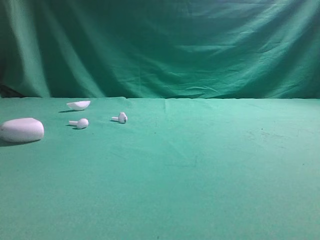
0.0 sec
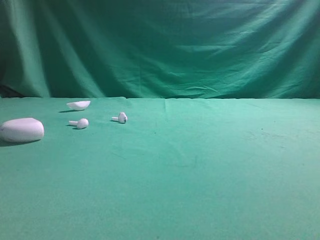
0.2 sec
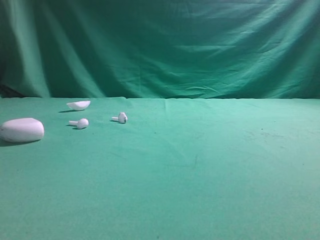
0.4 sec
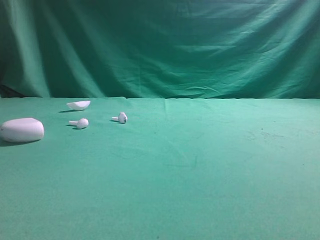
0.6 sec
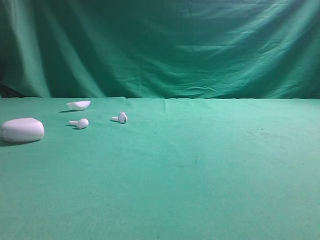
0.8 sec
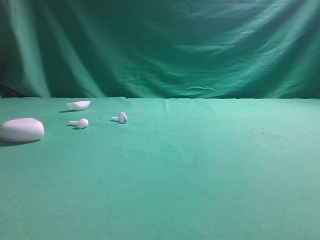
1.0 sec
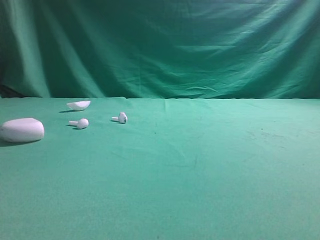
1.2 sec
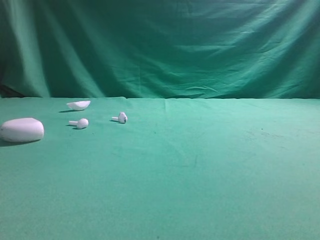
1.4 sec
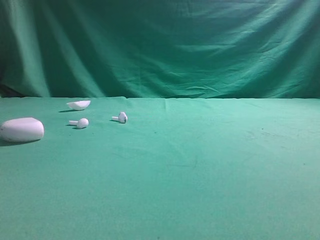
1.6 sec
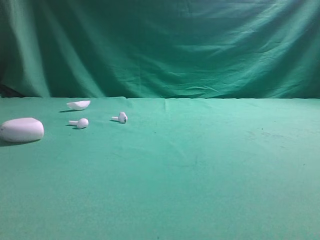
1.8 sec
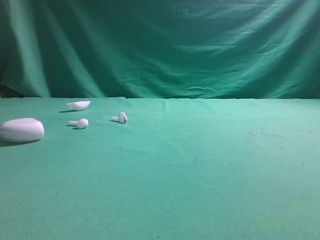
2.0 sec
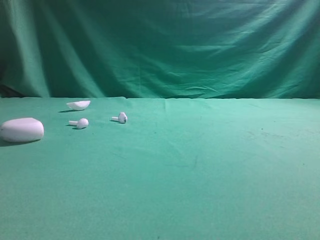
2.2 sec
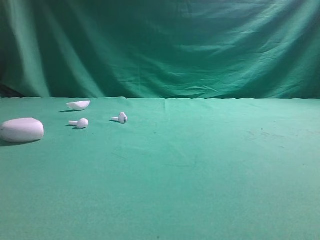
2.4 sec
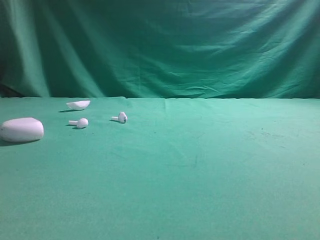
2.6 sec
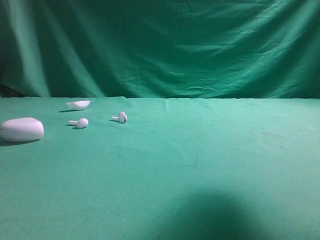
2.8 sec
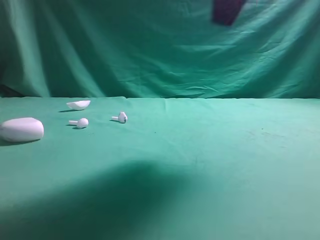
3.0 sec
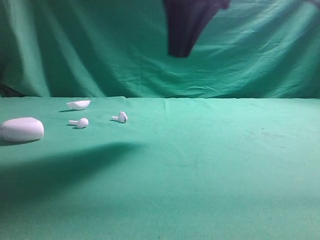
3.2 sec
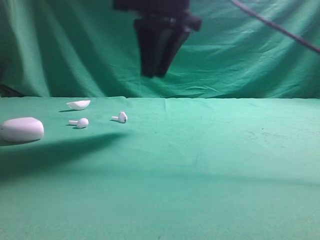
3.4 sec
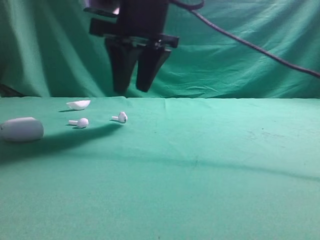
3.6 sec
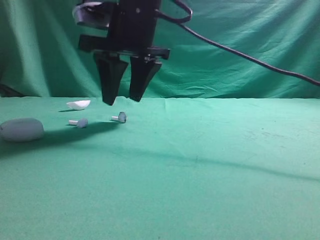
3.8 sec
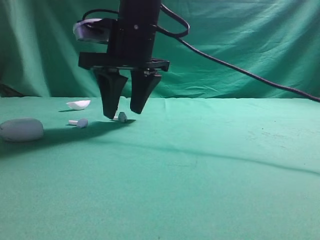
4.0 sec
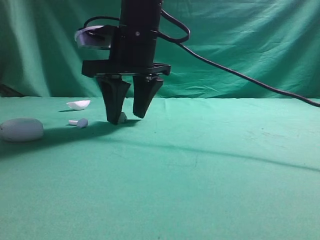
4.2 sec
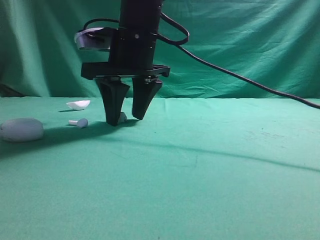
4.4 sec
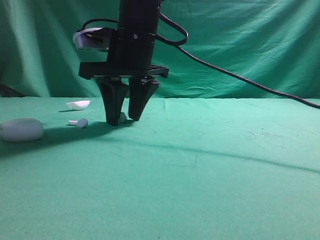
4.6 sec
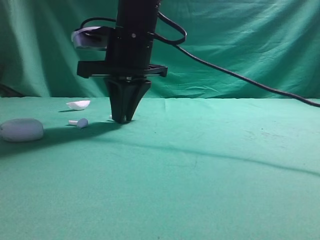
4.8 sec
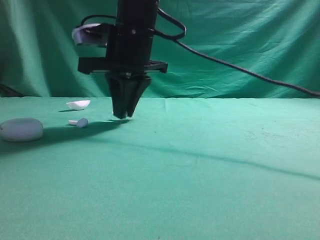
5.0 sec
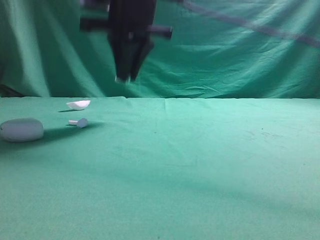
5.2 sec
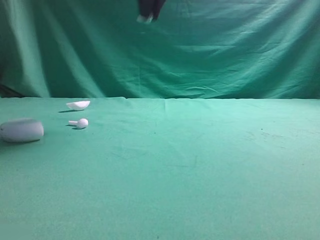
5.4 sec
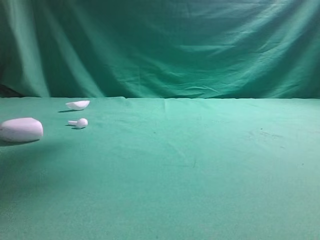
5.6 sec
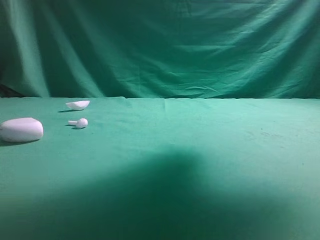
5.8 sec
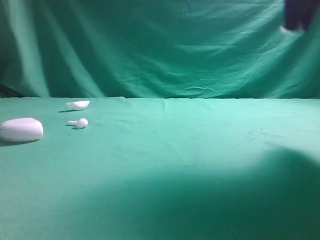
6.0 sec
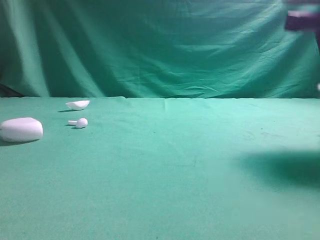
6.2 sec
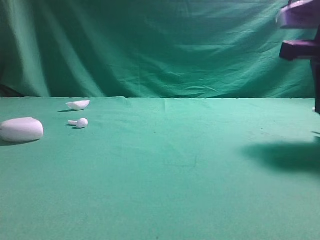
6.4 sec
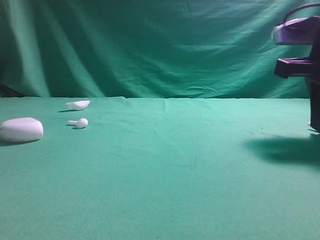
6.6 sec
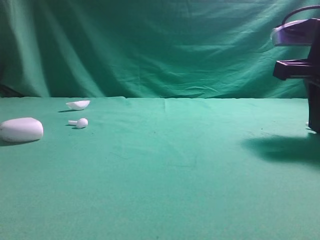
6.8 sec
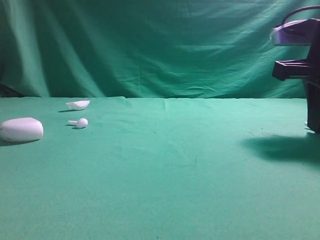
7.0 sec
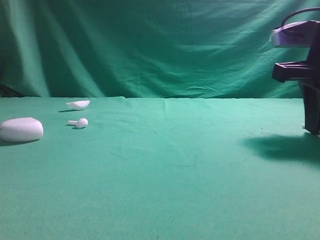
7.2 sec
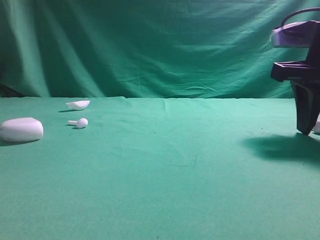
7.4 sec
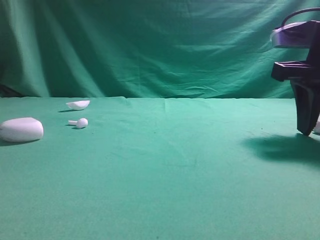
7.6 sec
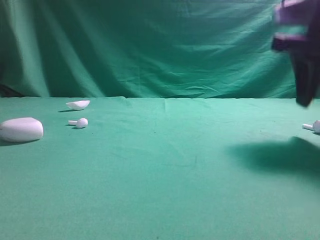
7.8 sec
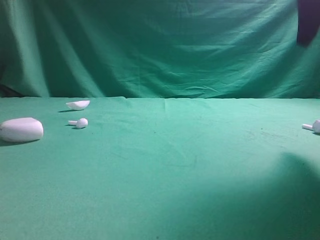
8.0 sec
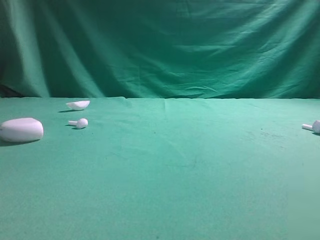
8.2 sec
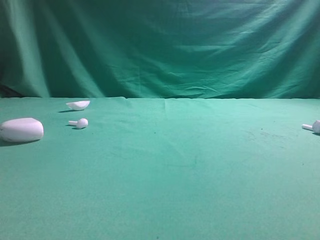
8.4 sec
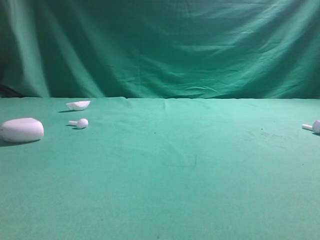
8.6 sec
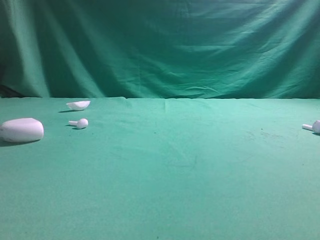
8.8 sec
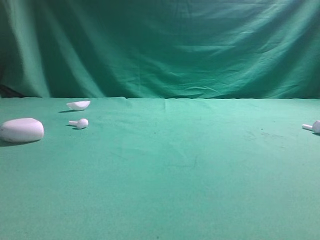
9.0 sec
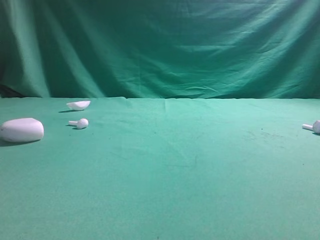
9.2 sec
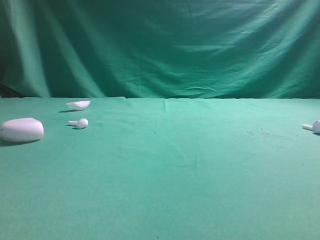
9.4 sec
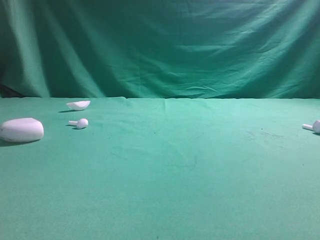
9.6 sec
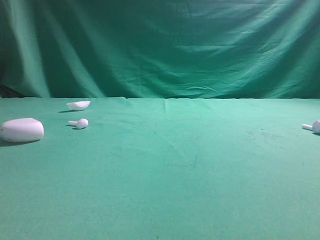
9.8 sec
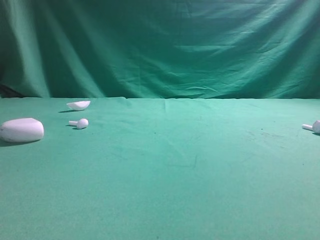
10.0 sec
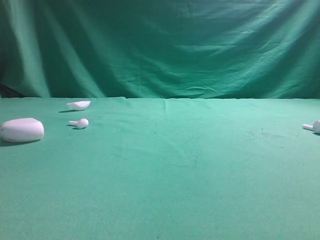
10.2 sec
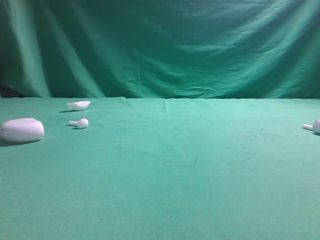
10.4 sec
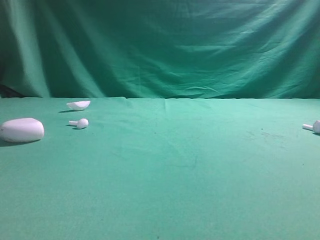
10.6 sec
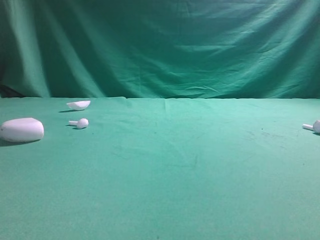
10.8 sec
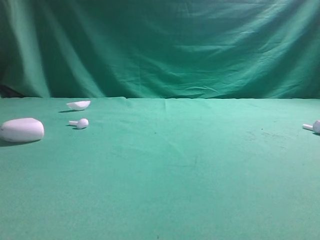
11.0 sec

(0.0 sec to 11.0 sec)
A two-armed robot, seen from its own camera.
Step, 0.0 sec - 5.4 sec: Grasp the Bluetooth earbud.
Step, 5.6 sec - 7.8 sec: Place bluetooth earbud on the right side of the table.

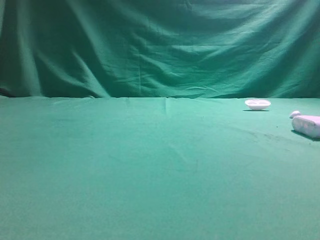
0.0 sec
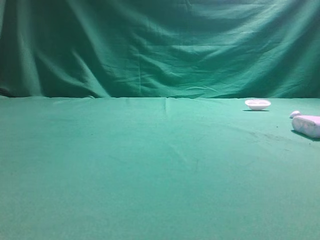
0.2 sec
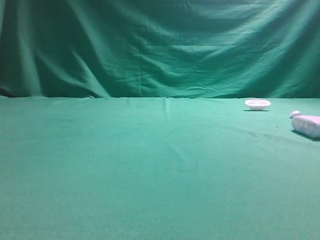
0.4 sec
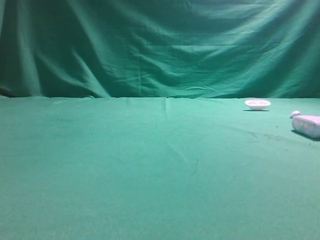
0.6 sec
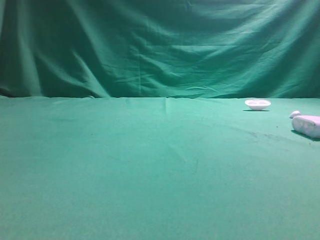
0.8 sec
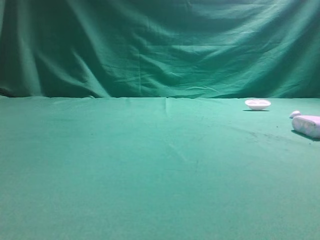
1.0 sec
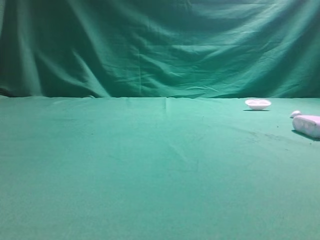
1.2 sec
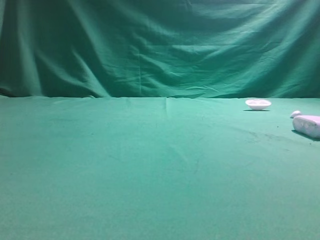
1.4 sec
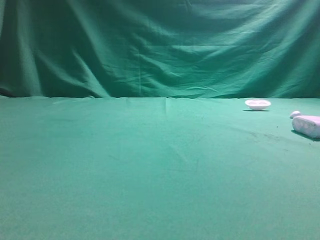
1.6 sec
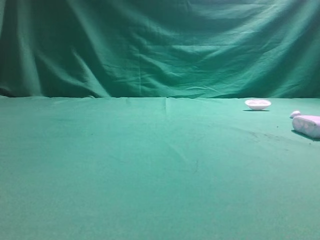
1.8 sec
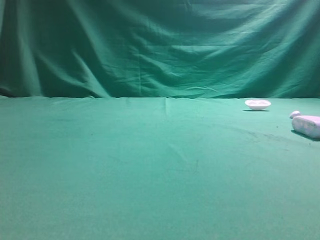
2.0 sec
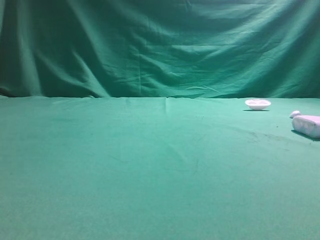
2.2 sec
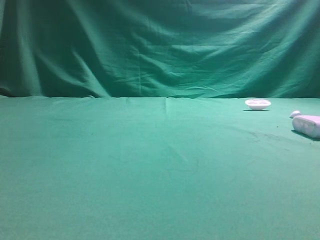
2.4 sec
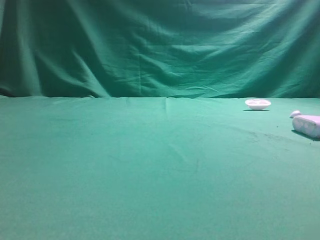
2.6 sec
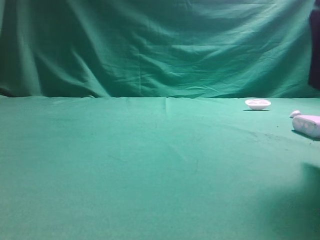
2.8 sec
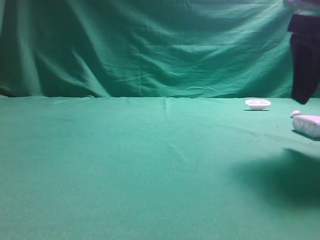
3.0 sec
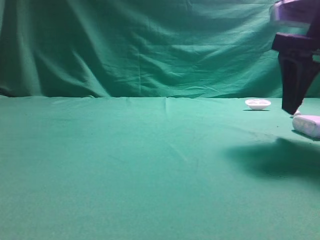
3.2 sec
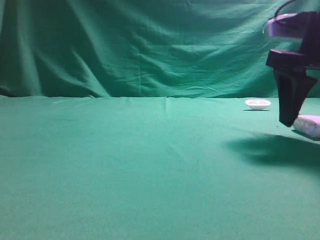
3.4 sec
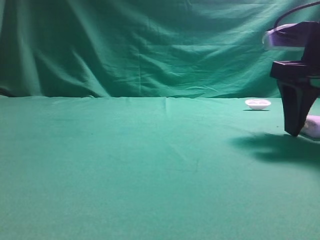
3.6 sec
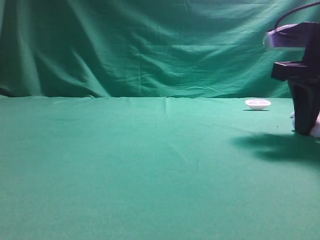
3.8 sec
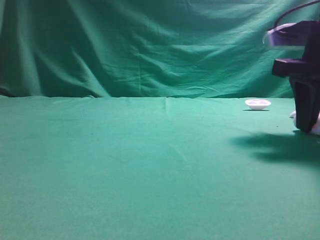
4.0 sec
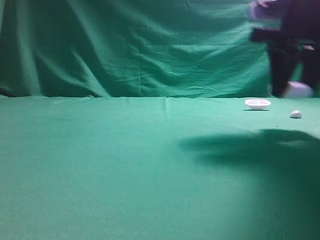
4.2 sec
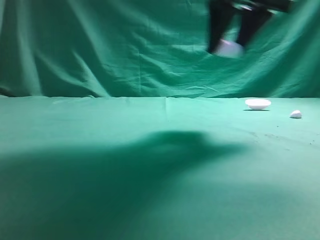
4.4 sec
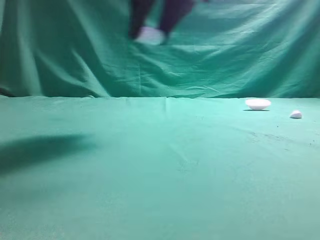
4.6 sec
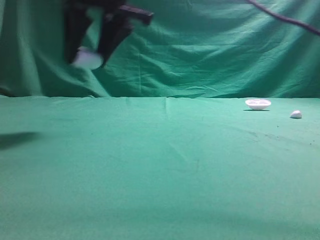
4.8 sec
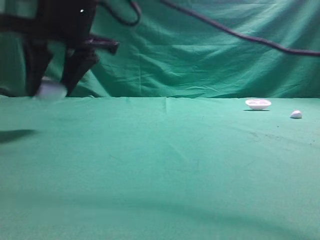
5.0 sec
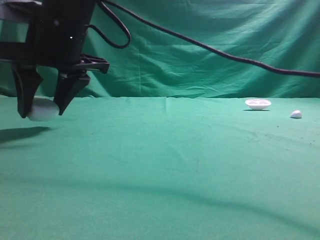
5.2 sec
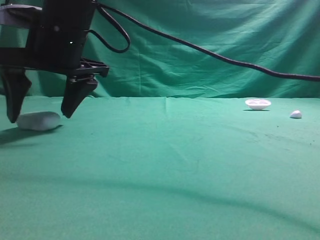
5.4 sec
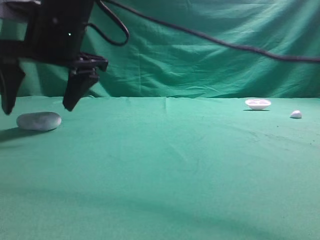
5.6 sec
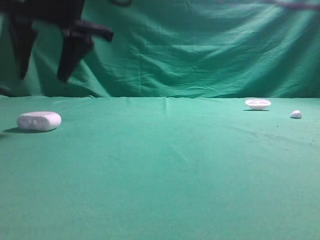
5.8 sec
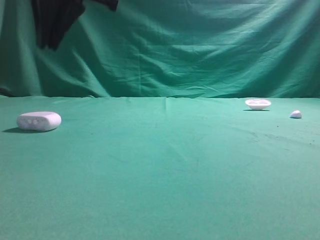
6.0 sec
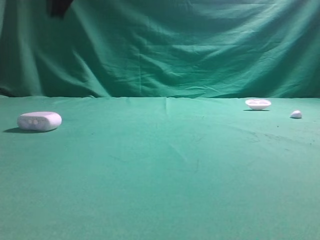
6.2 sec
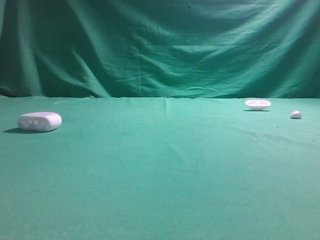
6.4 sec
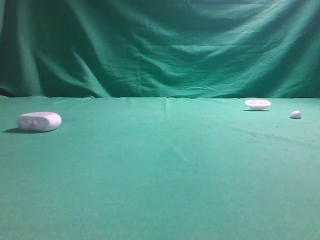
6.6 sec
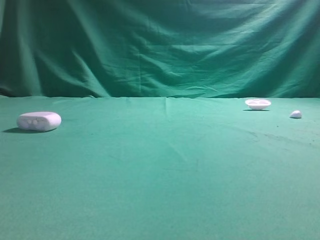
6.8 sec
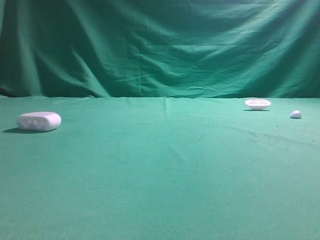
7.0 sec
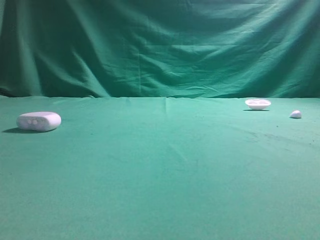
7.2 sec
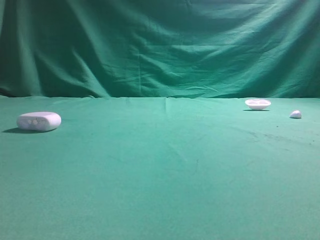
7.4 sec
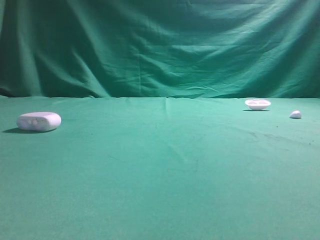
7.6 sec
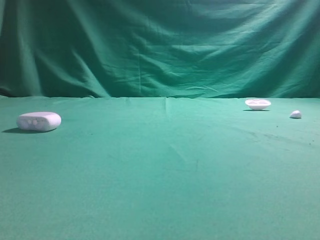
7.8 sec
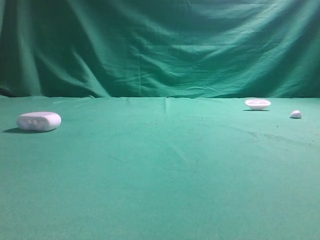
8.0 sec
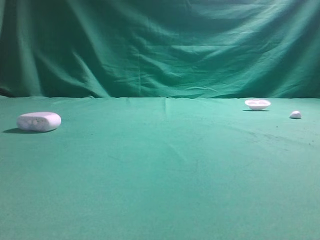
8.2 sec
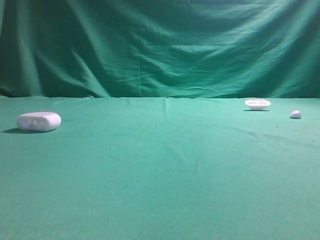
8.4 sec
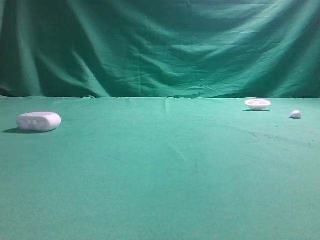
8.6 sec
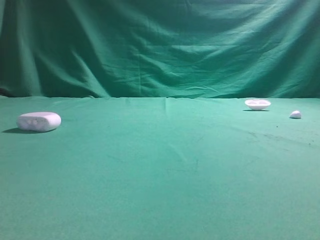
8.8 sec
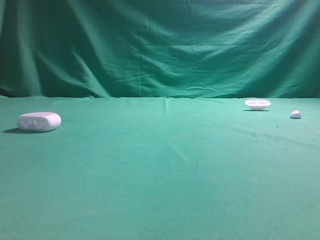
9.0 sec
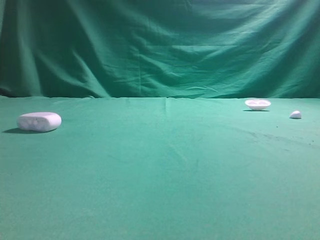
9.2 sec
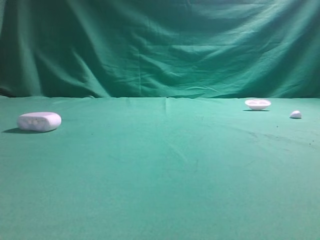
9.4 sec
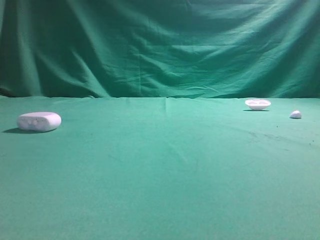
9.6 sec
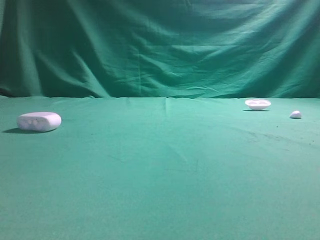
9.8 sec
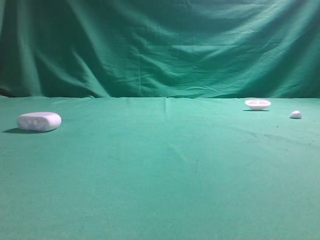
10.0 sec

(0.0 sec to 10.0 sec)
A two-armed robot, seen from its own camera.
Step, 0.0 sec - 4.2 sec: Grasp the Bluetooth earphone case.
Step, 4.4 sec - 5.6 sec: Place bluetooth earphone case on the left side of the table.

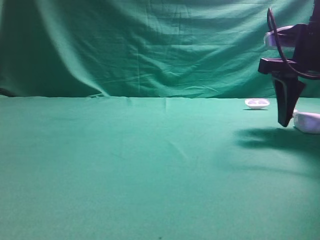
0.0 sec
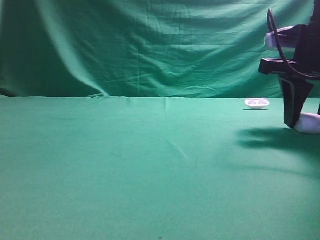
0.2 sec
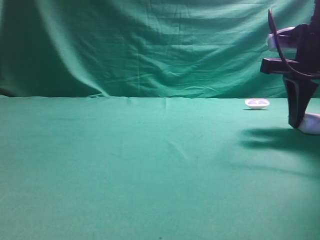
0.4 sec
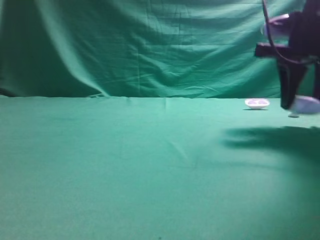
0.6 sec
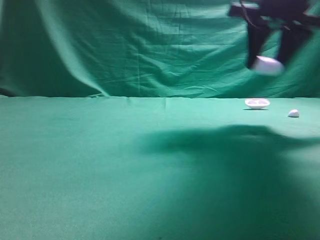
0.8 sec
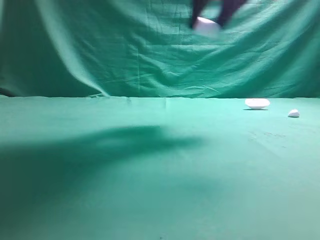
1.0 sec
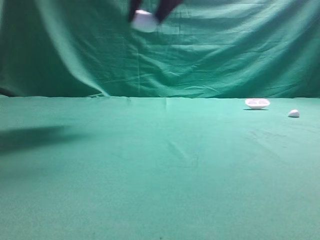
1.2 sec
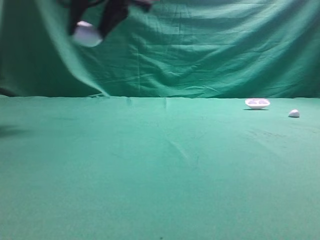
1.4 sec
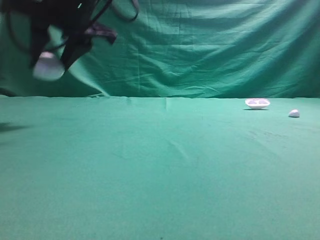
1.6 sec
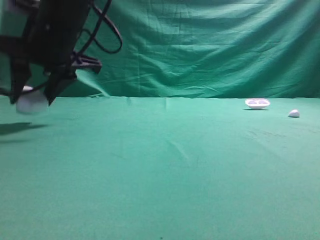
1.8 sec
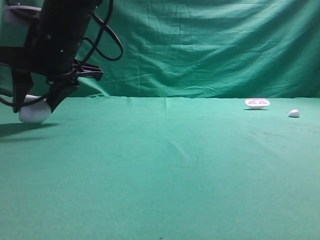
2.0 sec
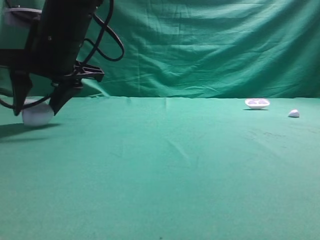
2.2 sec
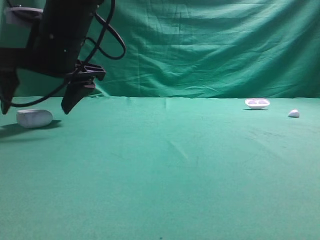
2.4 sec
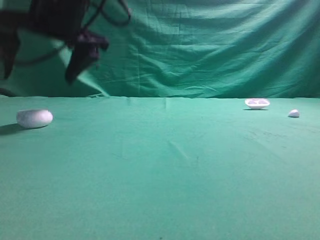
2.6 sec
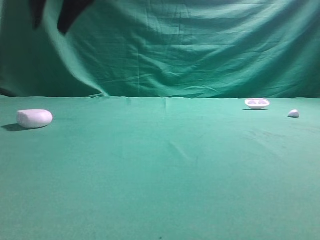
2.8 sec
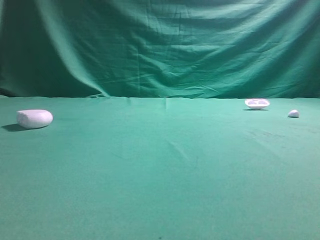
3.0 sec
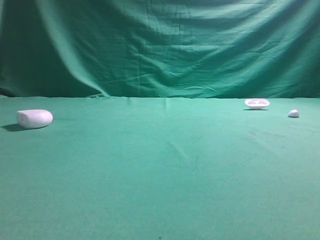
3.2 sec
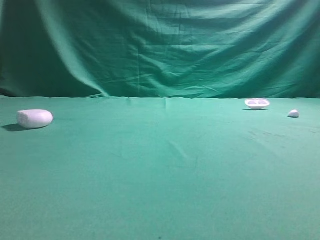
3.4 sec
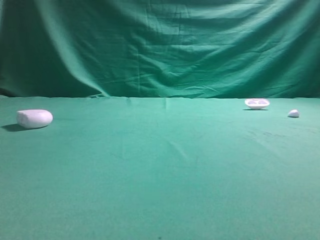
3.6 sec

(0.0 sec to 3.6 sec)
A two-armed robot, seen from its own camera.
Step, 1.0 sec - 2.6 sec: Place bluetooth earphone case on the left side of the table.
